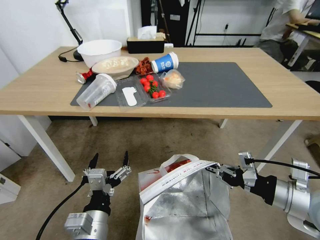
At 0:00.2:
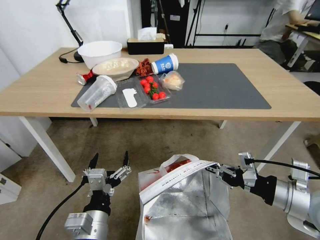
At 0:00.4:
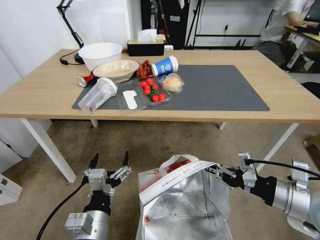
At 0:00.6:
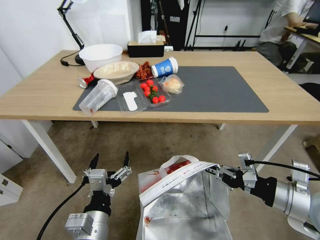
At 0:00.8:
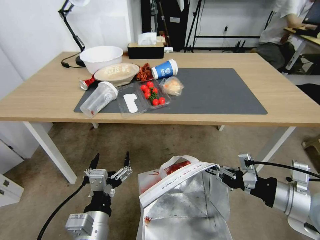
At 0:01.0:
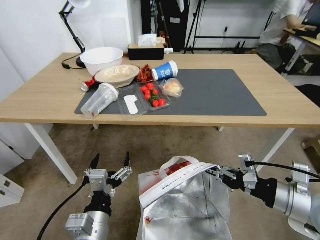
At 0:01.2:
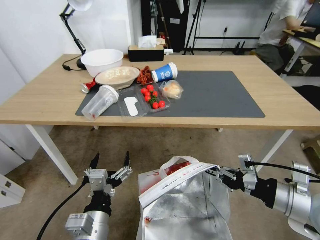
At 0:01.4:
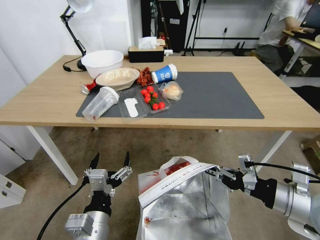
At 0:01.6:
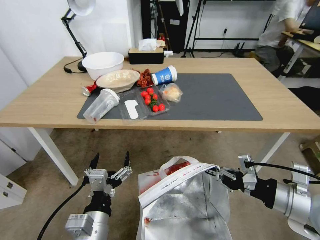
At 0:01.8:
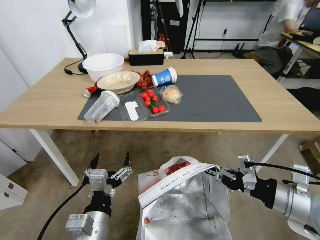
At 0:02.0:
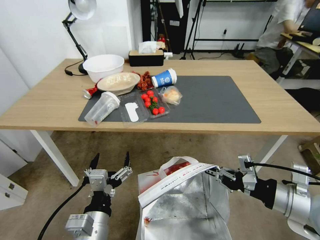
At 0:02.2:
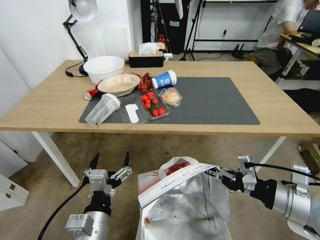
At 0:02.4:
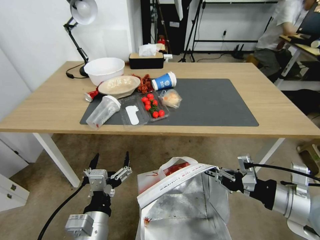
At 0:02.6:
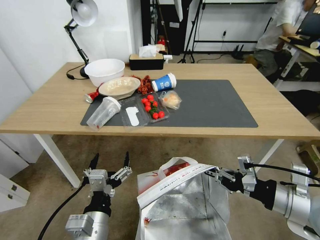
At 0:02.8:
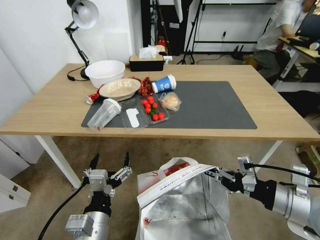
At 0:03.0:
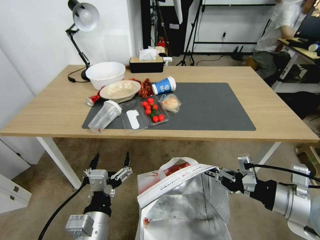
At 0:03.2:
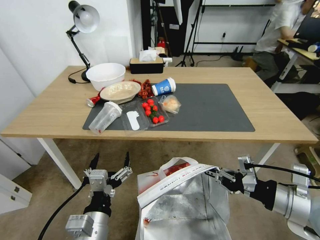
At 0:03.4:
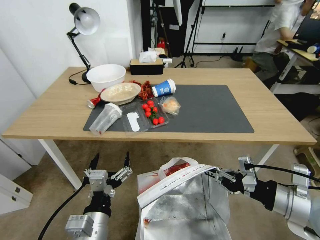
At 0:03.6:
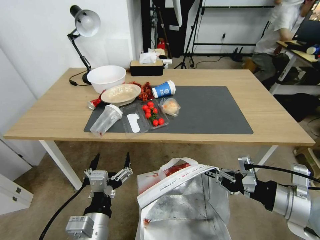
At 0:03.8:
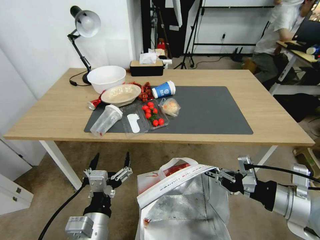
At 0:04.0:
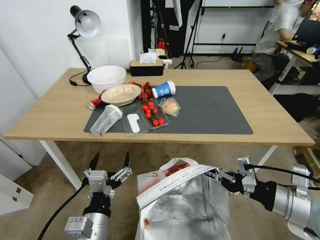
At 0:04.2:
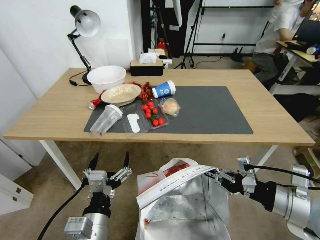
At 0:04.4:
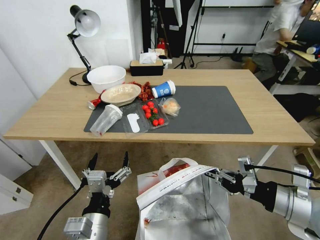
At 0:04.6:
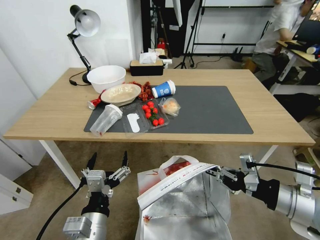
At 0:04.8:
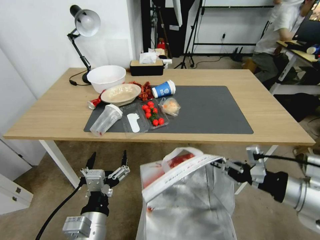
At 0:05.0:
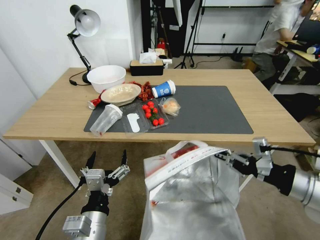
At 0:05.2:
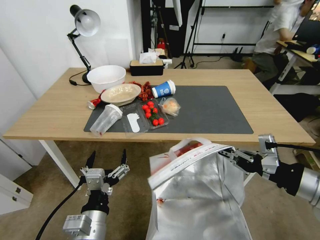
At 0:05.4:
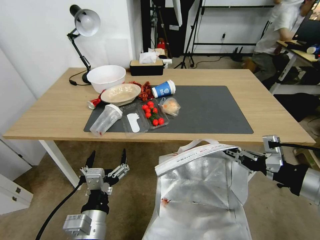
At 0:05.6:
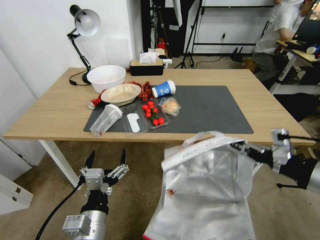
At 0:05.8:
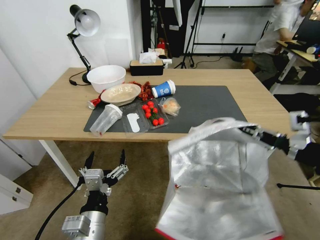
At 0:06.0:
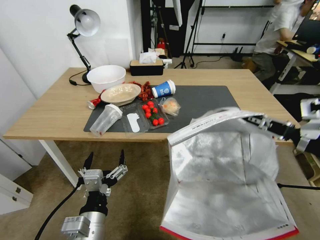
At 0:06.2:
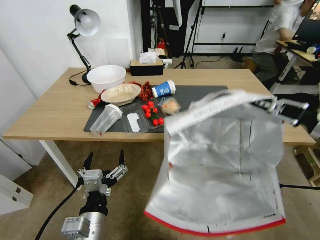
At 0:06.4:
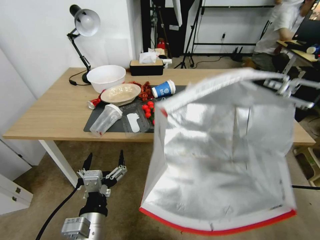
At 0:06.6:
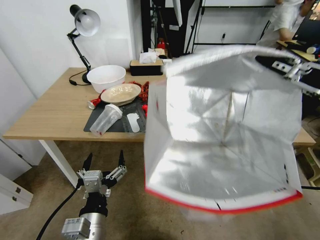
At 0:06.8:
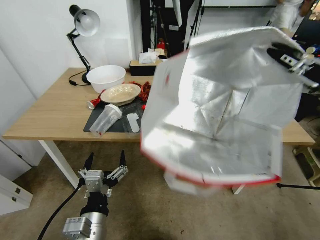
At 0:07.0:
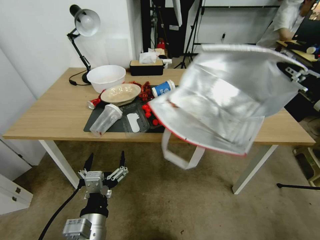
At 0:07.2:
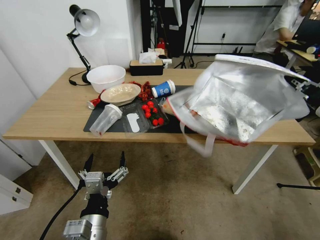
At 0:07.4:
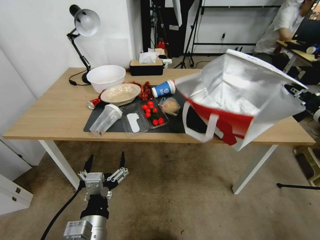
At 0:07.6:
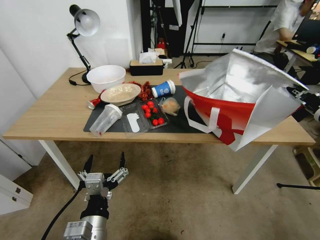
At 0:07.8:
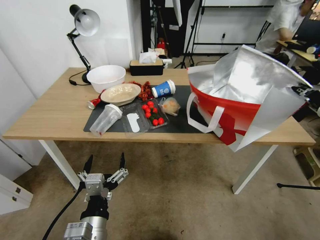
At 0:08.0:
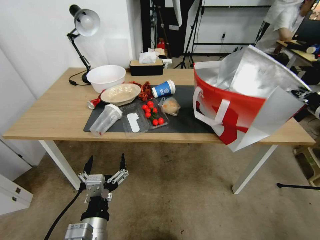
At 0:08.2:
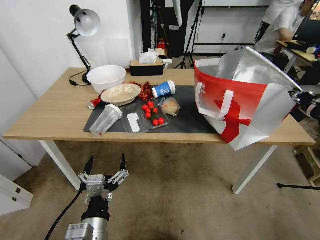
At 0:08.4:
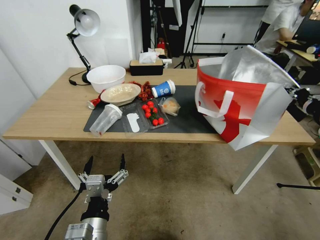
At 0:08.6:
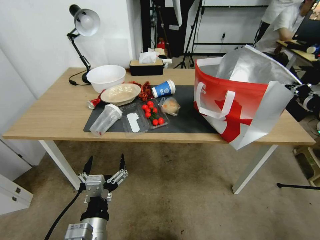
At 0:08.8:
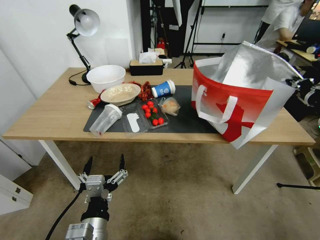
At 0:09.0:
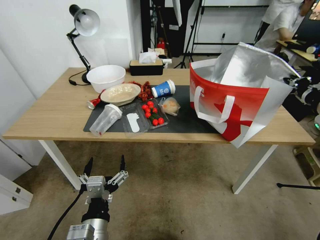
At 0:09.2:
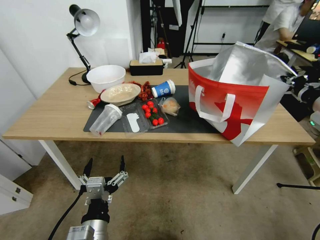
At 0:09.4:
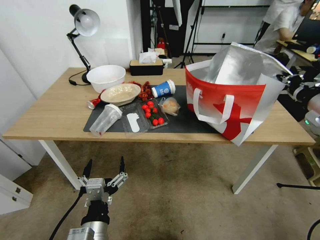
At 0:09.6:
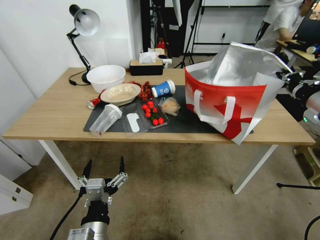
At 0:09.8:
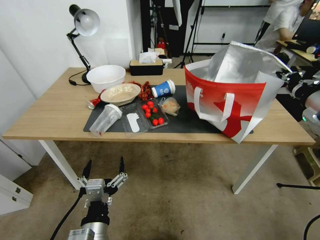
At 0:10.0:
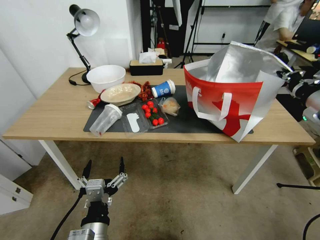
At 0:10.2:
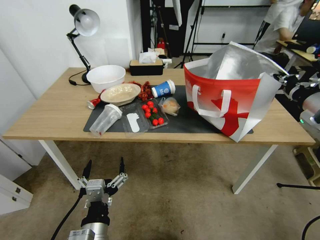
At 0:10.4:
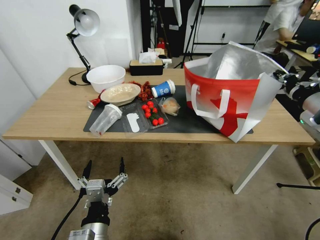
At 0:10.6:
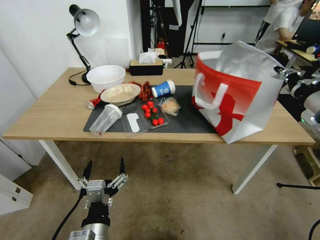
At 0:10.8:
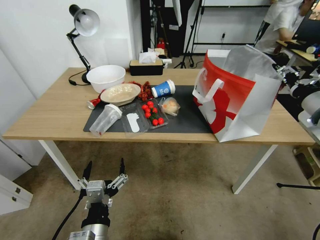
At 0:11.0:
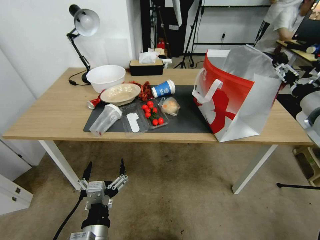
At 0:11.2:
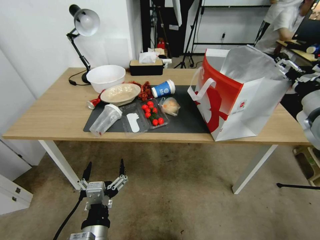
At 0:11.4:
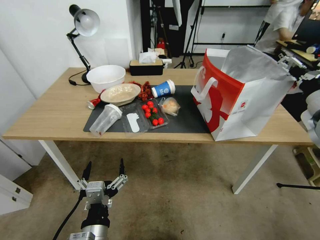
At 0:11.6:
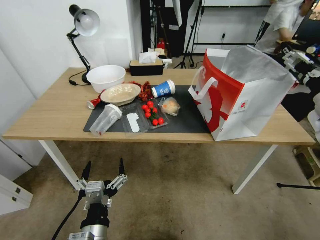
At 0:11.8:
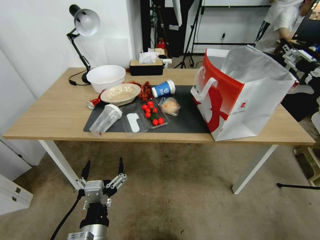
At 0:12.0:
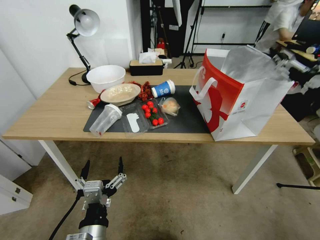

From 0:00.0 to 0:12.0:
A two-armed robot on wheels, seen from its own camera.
Task of the whole recording: Pick up the food delivery bag from the floor and place it on the table.
From 0:03.0 to 0:04.4: Both grippers stay about where they are.
From 0:04.4 to 0:06.0: The right gripper moves upward, approximately 15 cm.
From 0:06.0 to 0:07.6: The right gripper moves approximately 5 cm upward and comes back.
From 0:07.6 to 0:09.0: The right gripper goes about 10 cm forward.
From 0:09.0 to 0:10.4: The grippers stay close to where they were, moving slightly.
From 0:10.4 to 0:12.0: The right gripper travels backward by approximately 5 cm, and opens.

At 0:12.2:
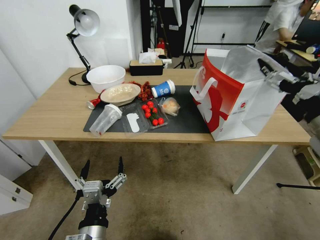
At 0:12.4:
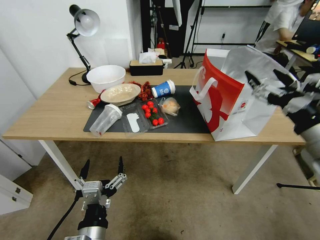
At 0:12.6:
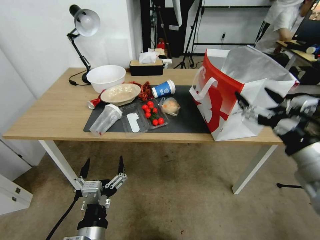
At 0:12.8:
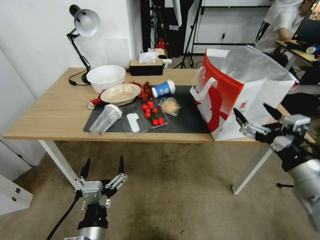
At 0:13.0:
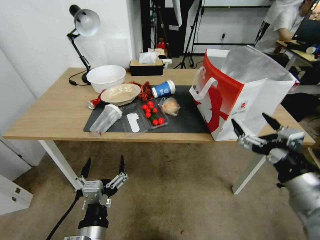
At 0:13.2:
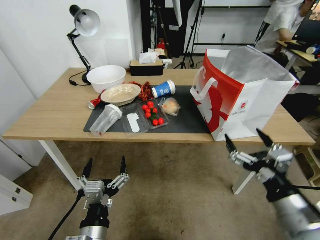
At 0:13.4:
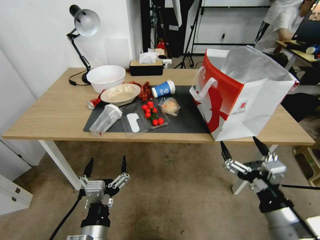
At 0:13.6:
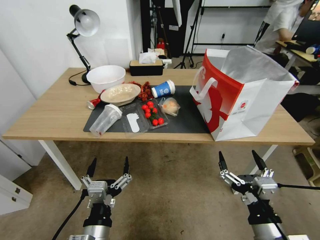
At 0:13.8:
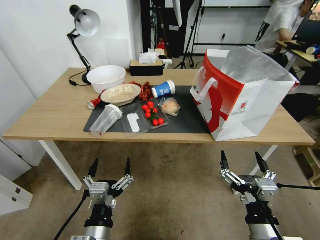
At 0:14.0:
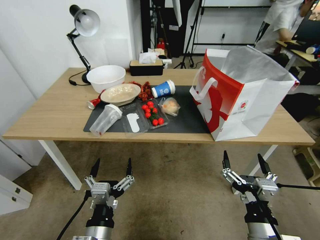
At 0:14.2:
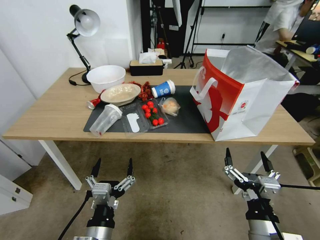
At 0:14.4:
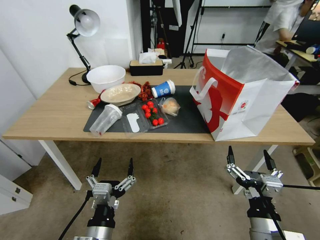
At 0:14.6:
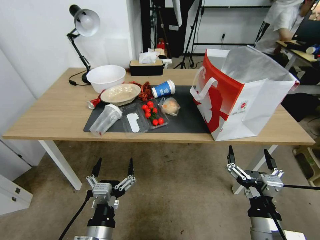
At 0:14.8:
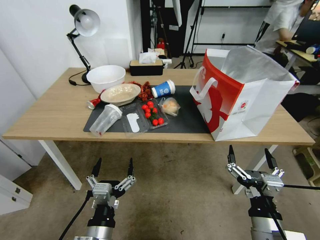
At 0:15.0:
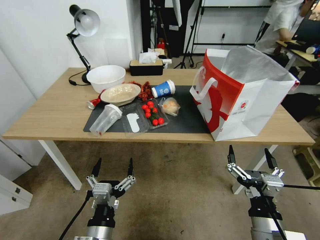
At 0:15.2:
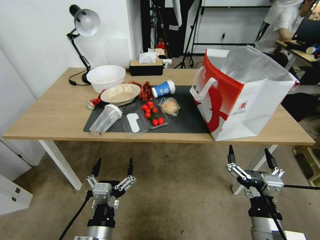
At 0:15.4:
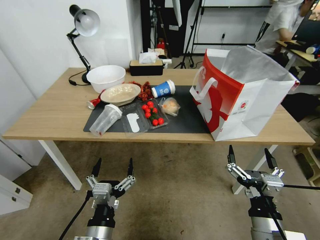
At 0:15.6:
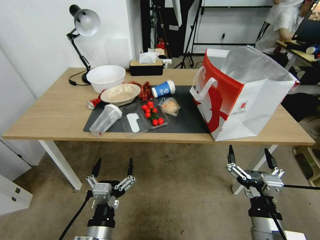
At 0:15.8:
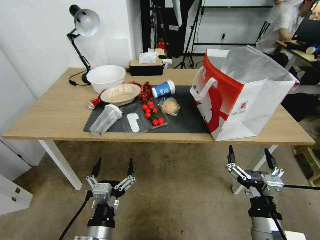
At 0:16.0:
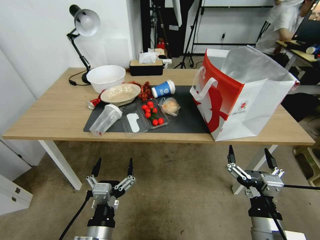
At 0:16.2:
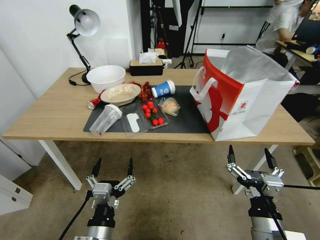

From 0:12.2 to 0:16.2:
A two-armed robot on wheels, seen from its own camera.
Task of the whole recording: Pick up the food delivery bag from the floor and place it on the table.
From 0:12.2 to 0:13.6: The right gripper is displaced downward, backward and to the left by some 30 cm.
From 0:13.6 to 0:14.8: There are only small adjustments of the grippers.
From 0:14.8 to 0:16.2: Both grippers stay about where they are.
